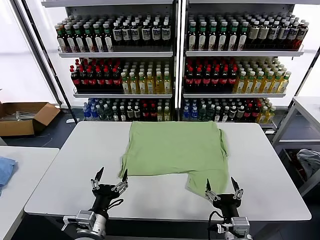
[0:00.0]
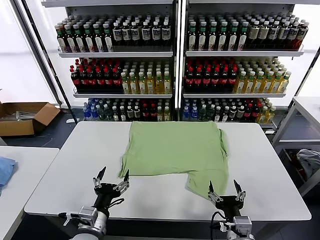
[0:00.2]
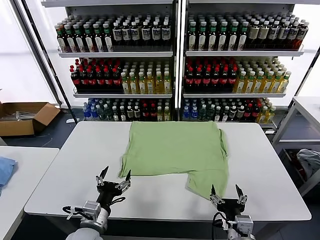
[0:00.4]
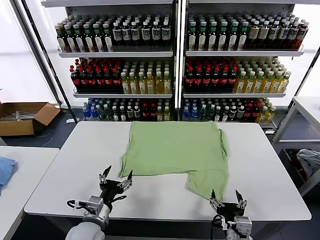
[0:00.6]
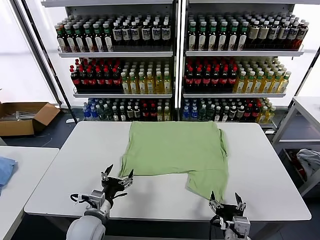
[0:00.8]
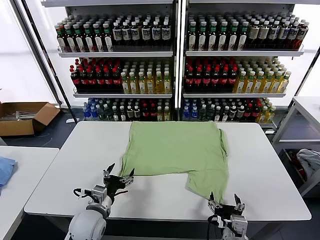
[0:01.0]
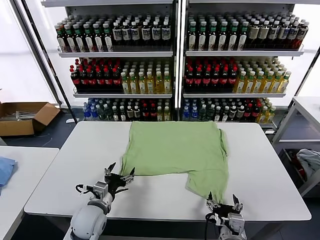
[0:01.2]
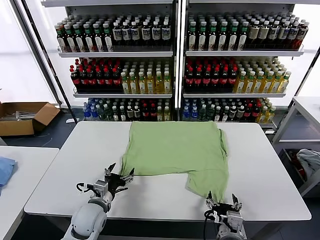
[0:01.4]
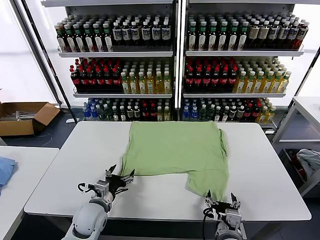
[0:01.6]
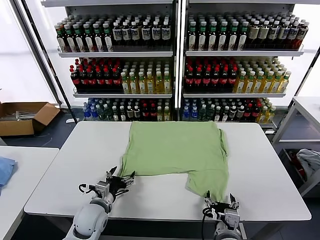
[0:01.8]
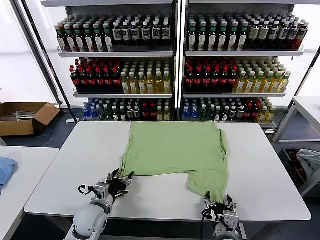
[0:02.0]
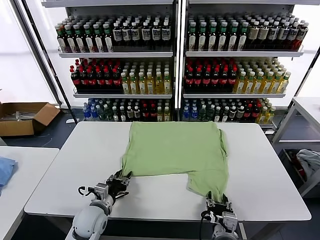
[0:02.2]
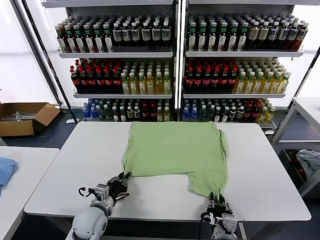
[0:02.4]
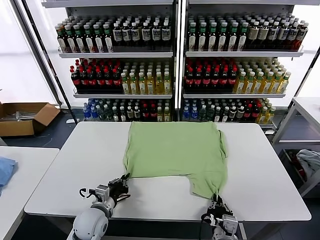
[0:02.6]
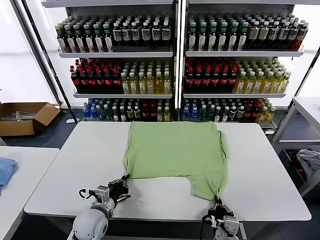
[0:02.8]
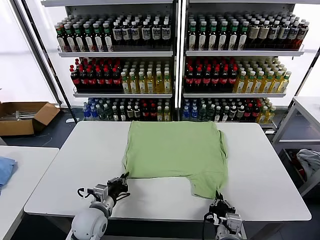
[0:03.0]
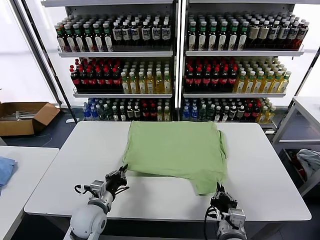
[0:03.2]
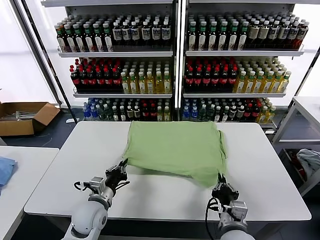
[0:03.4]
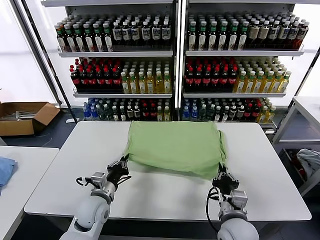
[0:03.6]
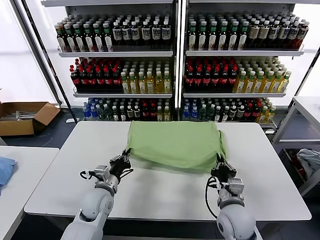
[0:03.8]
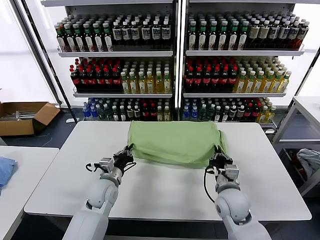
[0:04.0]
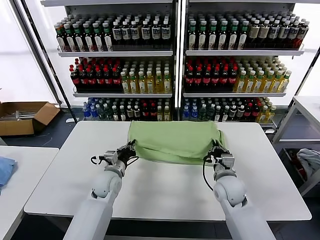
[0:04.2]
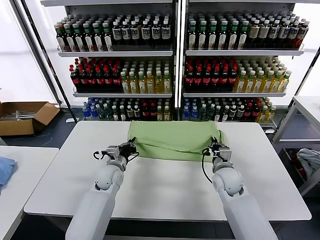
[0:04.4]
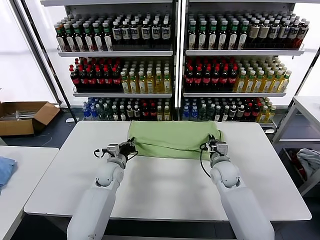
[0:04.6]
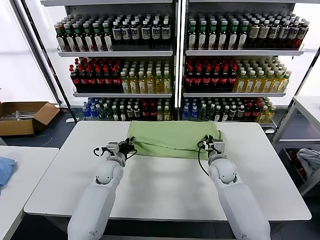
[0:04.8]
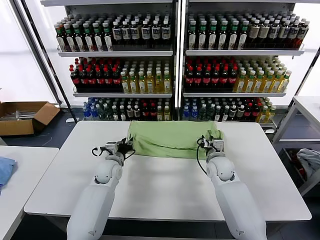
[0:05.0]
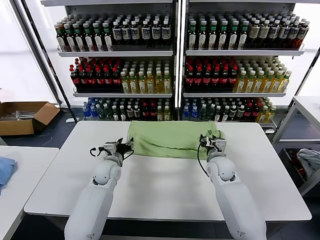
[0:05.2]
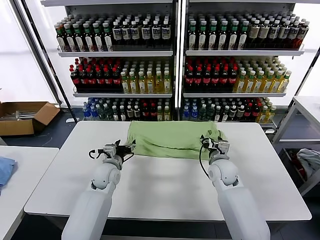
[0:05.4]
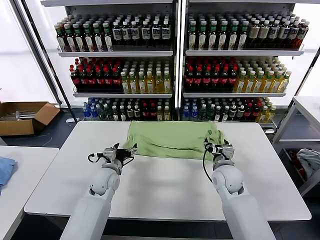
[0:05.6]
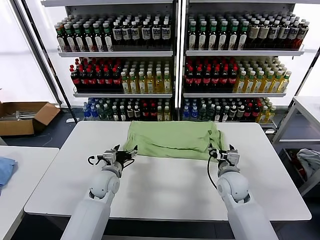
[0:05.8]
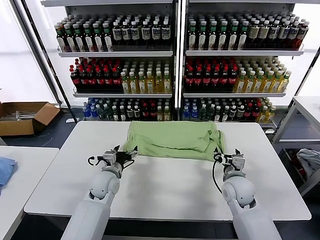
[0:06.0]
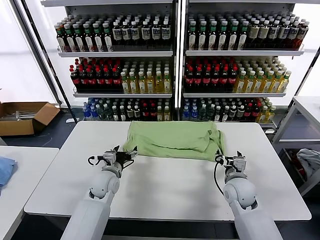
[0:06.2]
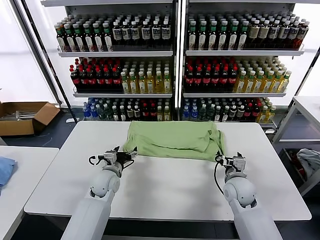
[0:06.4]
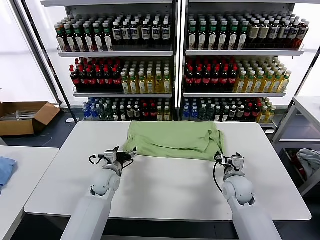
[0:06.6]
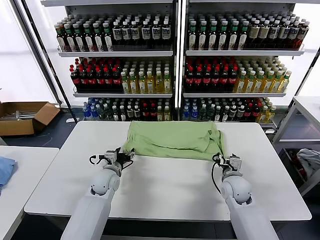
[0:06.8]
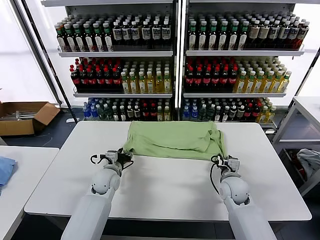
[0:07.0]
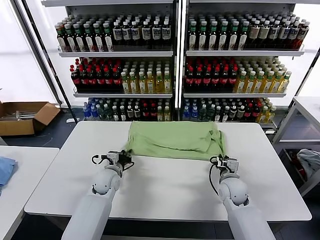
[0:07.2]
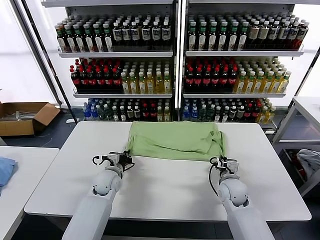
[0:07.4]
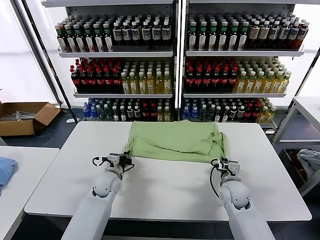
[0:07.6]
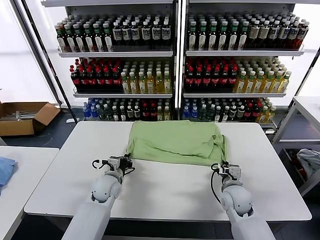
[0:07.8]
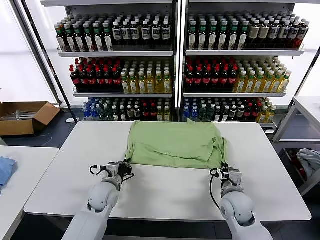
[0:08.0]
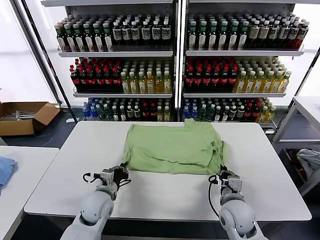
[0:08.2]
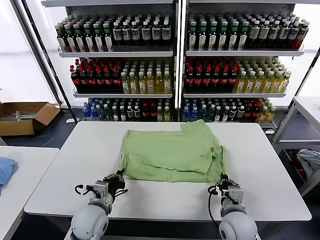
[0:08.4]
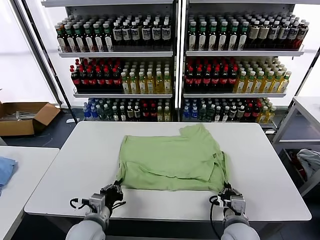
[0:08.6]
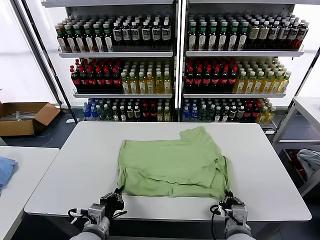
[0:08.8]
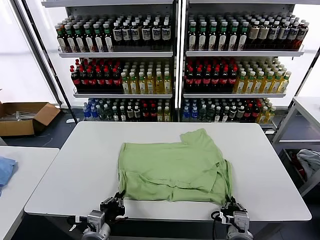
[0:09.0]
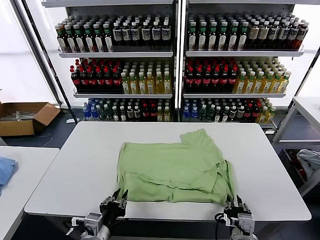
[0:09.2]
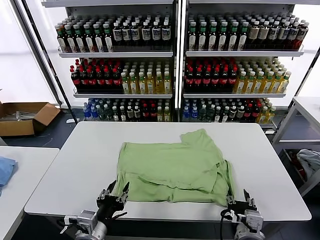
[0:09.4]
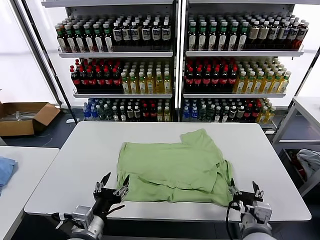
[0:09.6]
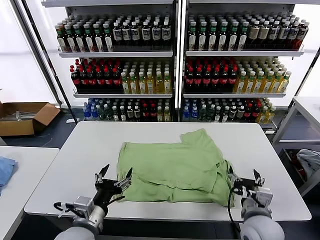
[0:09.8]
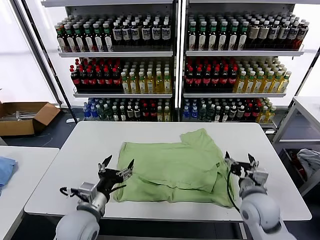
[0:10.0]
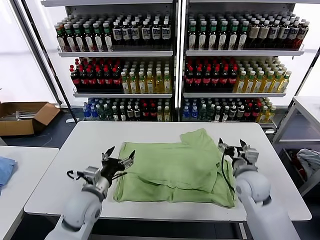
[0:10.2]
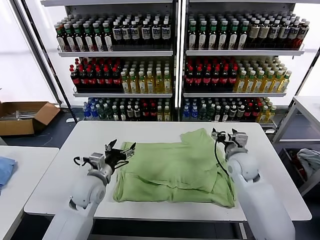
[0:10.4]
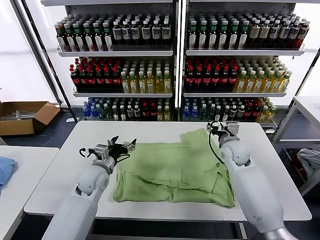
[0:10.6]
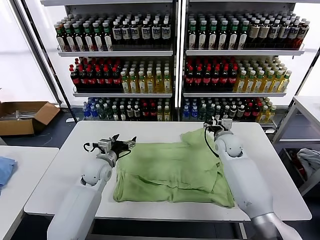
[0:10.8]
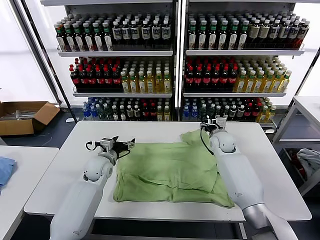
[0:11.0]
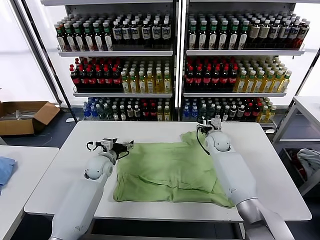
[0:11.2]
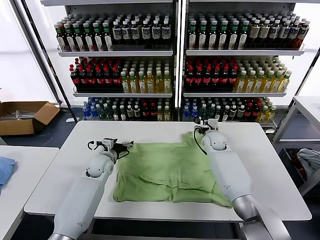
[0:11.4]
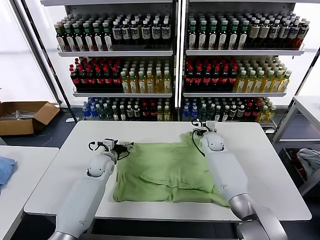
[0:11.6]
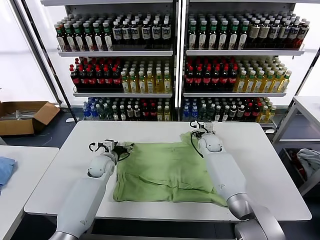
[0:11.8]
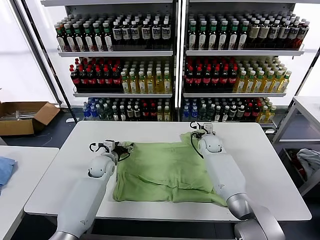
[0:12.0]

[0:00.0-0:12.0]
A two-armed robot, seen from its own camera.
Task of the whole recording: fold and organize the clothes.
Step, 0:00.0 to 0:02.8: use both grippers simultaneously to clamp the lower edge of the clothing fabric.
Step, 0:03.0 to 0:05.2: use both grippers to drag the lower edge of the fabric forward and fold it over the upper edge.
Step, 0:05.4 to 0:09.2: Drag the clothes downward with both gripper.
0:01.6 to 0:03.0: The right gripper closes, while the left gripper closes its fingers.
0:03.0 to 0:04.4: The left gripper is displaced forward by about 15 cm; the right gripper is displaced forward by some 25 cm.
0:04.4 to 0:06.0: The left gripper opens, while the right gripper goes approximately 5 cm backward, and opens.
0:06.0 to 0:07.6: The left gripper closes its fingers. The right gripper closes.
0:07.6 to 0:09.0: The two grippers go some 20 cm backward.
0:09.0 to 0:10.4: The left gripper shifts some 20 cm forward, and opens. Meanwhile the right gripper travels forward by approximately 30 cm, and opens.
0:10.4 to 0:12.0: The right gripper shifts roughly 15 cm forward, downward and to the left. The left gripper is displaced forward and downward by roughly 15 cm.

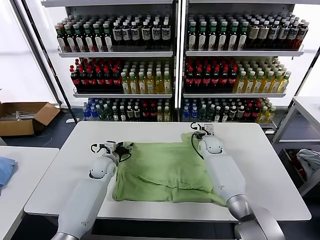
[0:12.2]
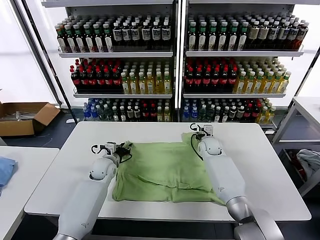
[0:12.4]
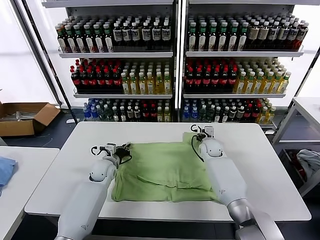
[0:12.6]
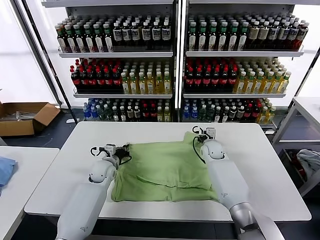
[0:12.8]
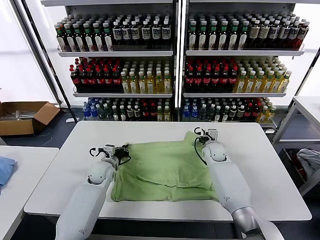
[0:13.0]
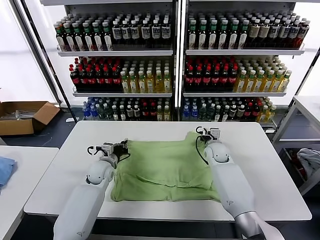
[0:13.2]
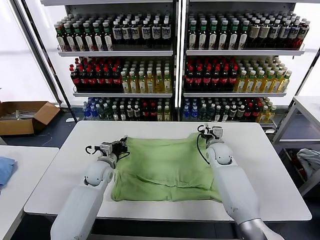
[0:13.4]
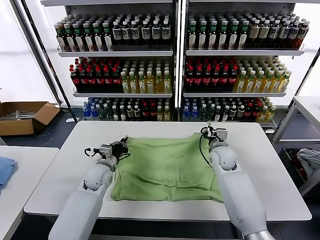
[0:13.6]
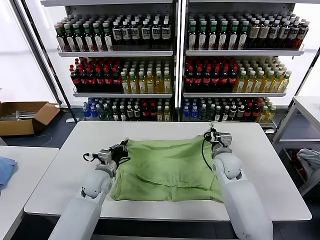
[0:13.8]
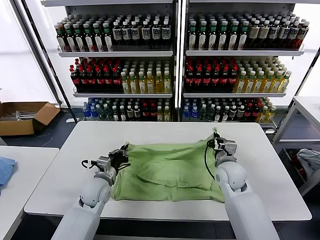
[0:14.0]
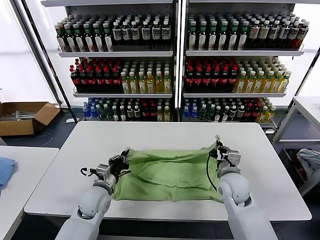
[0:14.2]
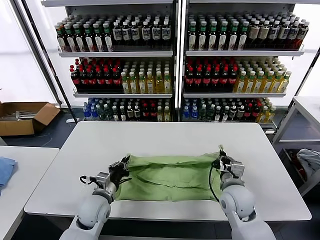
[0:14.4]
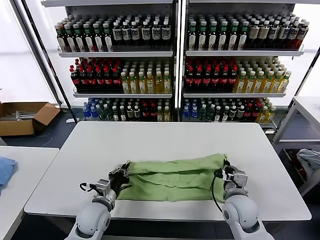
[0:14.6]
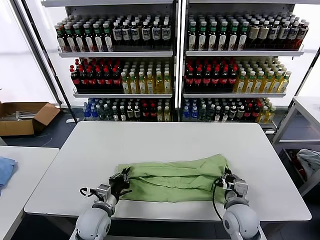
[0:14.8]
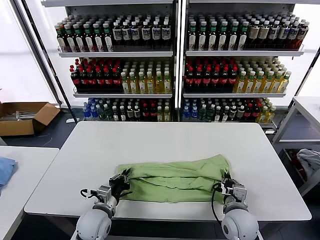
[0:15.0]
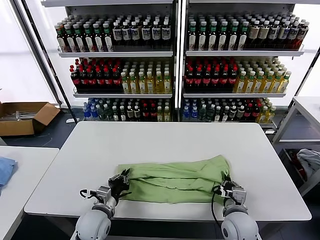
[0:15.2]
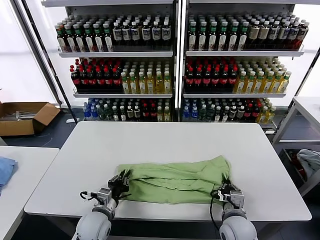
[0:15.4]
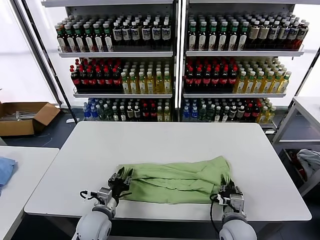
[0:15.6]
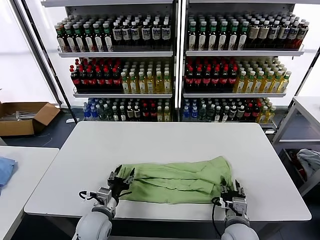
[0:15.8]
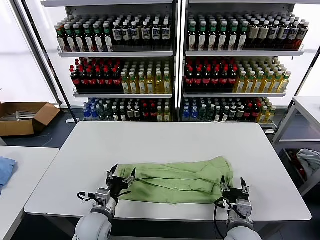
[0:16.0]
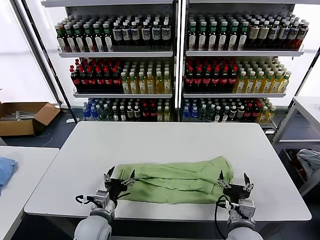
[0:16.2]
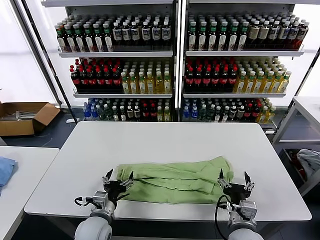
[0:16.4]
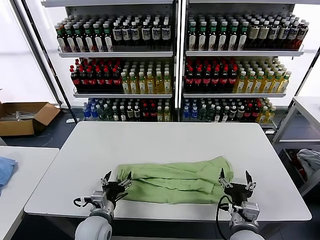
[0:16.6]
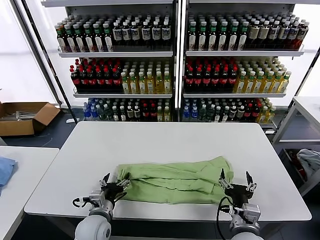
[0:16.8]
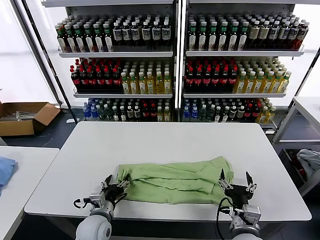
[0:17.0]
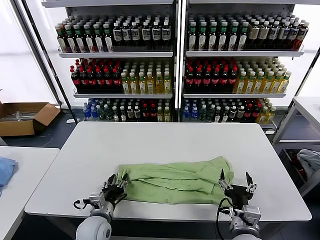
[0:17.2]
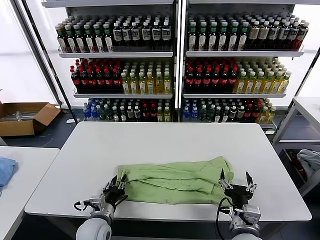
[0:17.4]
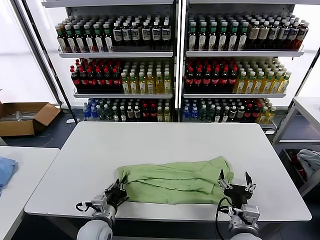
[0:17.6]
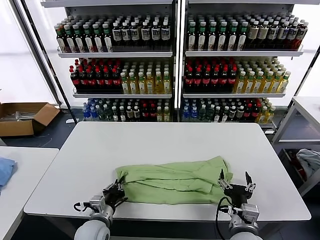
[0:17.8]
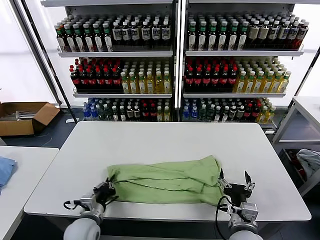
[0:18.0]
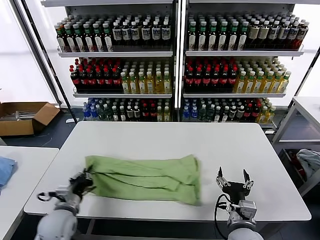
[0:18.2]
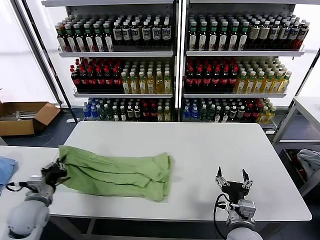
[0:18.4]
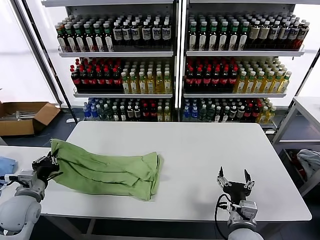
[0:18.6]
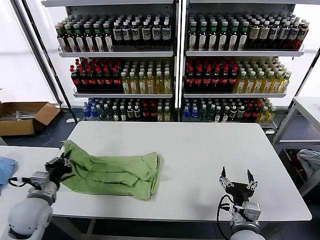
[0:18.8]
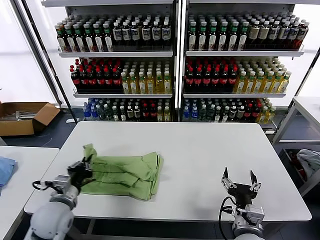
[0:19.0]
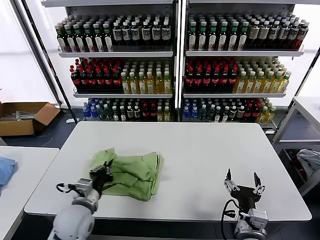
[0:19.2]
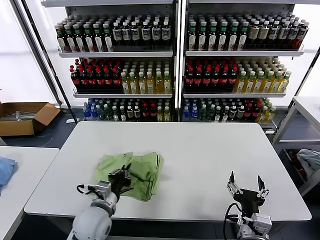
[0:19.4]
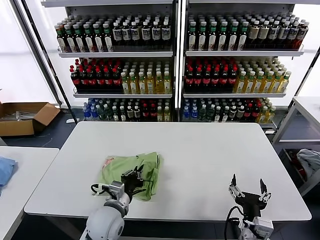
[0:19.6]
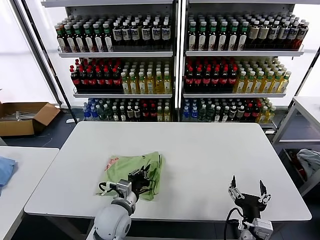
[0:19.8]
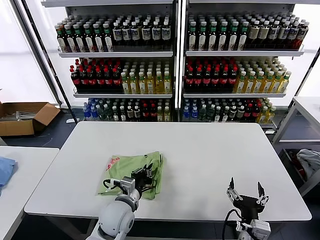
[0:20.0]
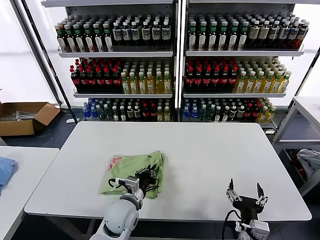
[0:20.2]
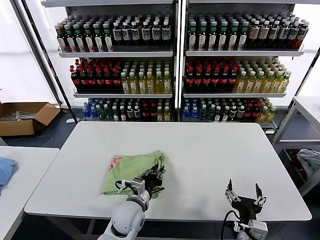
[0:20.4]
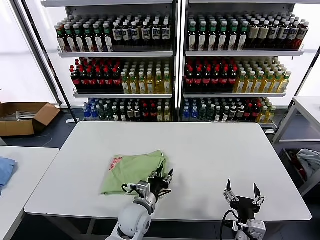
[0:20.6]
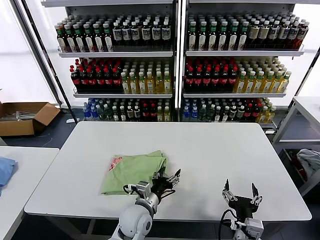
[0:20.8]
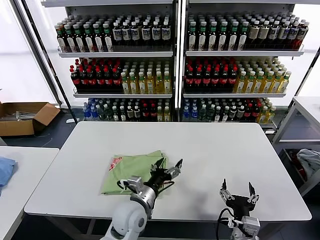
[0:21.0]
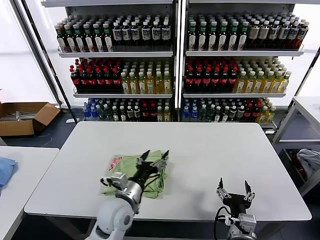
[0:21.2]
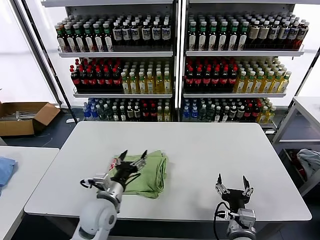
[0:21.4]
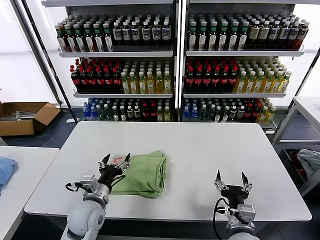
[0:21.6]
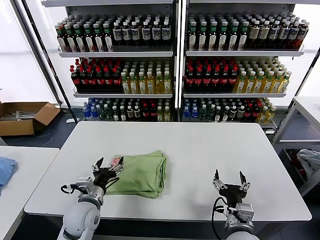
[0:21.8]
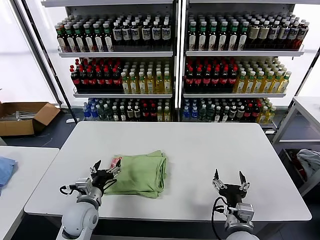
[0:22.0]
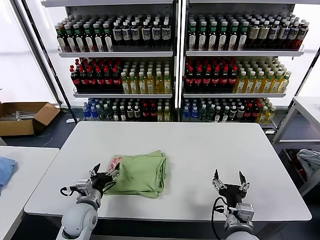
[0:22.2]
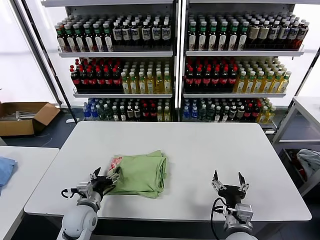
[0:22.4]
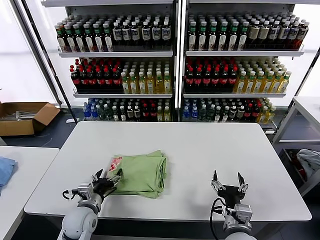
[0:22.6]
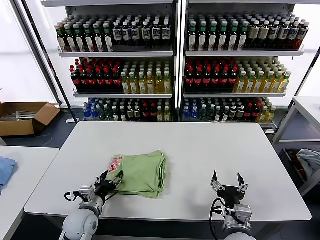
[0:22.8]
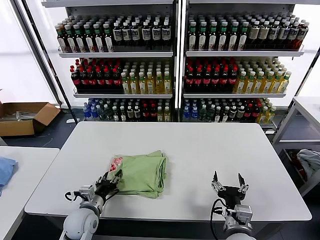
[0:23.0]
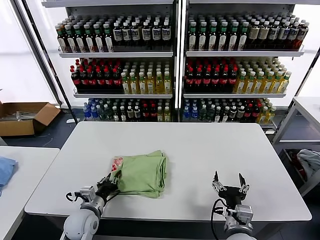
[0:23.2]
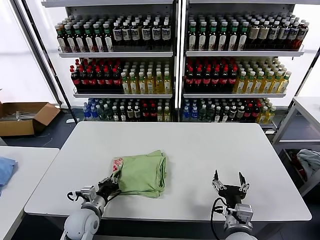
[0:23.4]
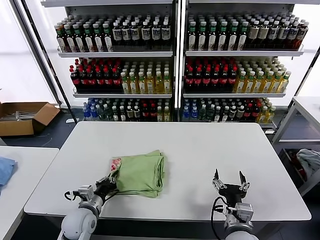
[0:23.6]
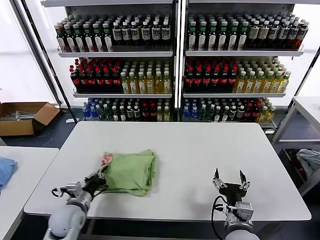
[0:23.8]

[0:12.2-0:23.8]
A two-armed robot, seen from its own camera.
Task of the whole recording: fold and organize the clothes.
Step, 0:13.0 to 0:16.0: use both grippers to drag the upper edge of the fabric backward and fold it over the lower edge.
Step, 0:16.2 to 0:17.6: use the left gripper to clamp the left edge of the fabric.
Step, 0:17.8 to 0:20.8: use the left gripper to drag the left edge of the fabric to the left and folds it over the right edge.
0:12.2 to 0:13.6: The right gripper moves backward, approximately 10 cm, and closes its fingers; the left gripper travels backward by approximately 5 cm, and closes.
0:13.6 to 0:15.0: The two grippers go some 20 cm backward.
0:15.0 to 0:16.6: The left gripper opens up; the right gripper moves backward, approximately 5 cm, and opens up.
0:16.6 to 0:18.0: The left gripper closes.
0:18.0 to 0:19.4: The left gripper travels upward by some 5 cm, and goes to the left and returns, some 15 cm each way.
0:19.4 to 0:21.0: The left gripper moves to the right, roughly 10 cm, and opens its fingers.
0:21.0 to 0:22.4: The left gripper heads to the left, covering roughly 15 cm.
0:22.4 to 0:23.8: The left gripper closes.
